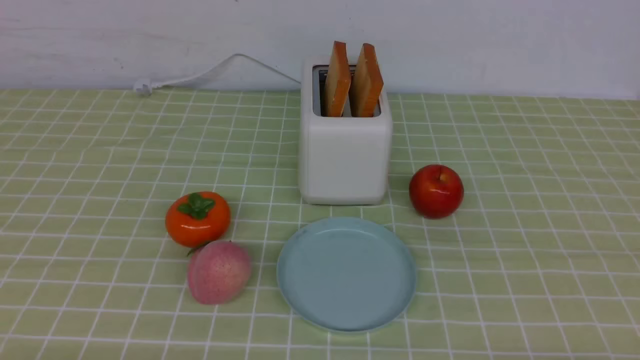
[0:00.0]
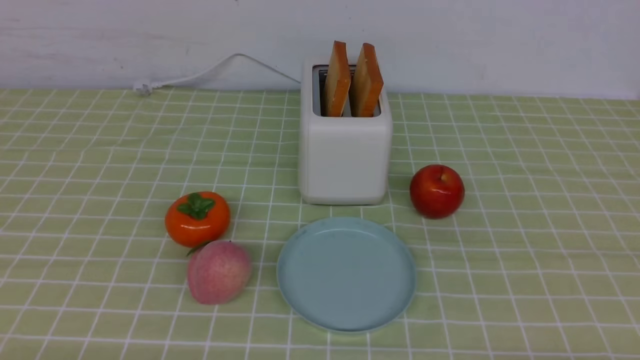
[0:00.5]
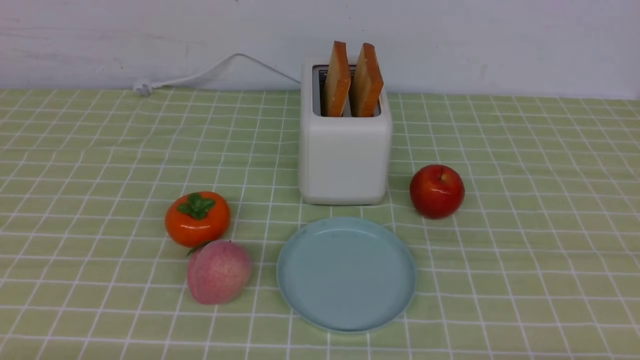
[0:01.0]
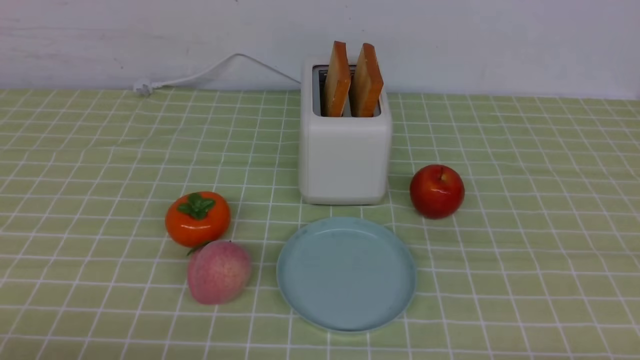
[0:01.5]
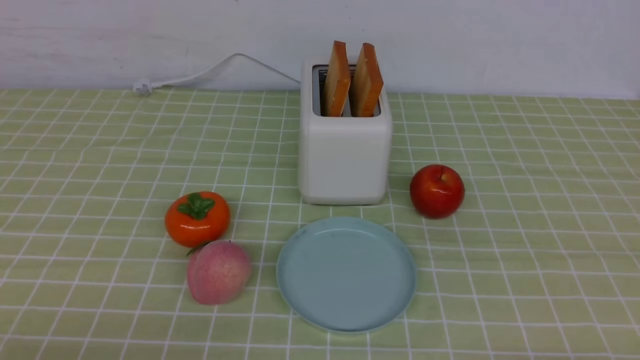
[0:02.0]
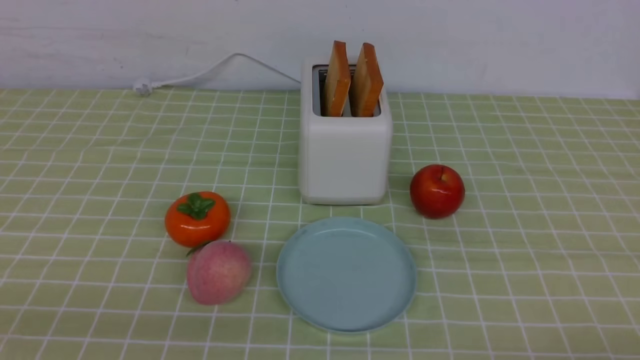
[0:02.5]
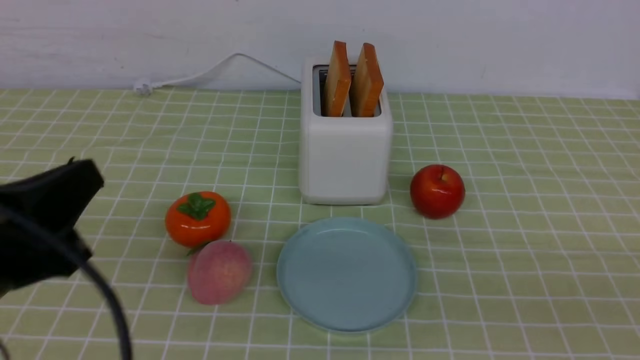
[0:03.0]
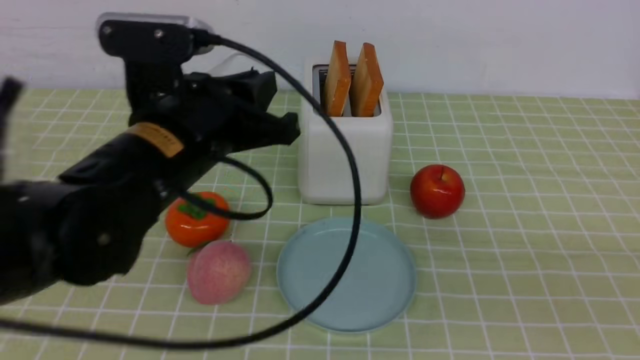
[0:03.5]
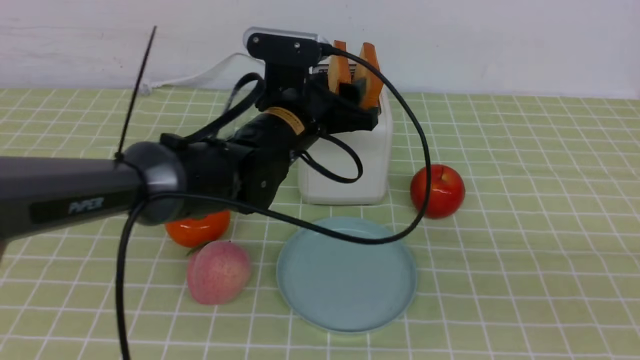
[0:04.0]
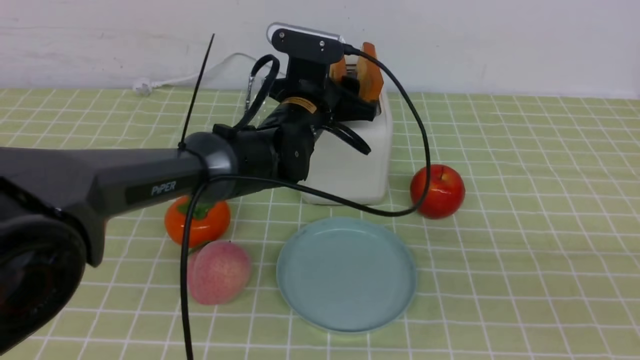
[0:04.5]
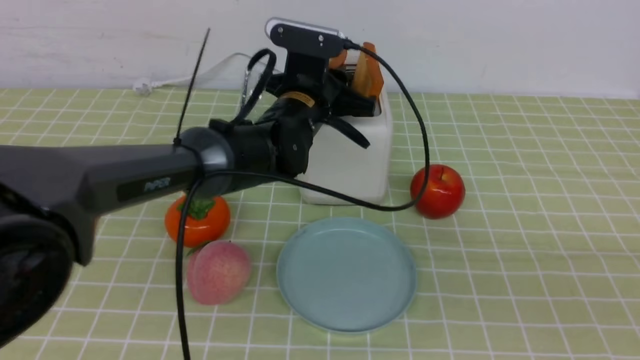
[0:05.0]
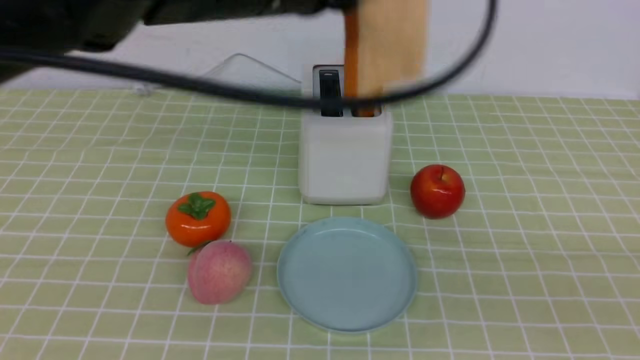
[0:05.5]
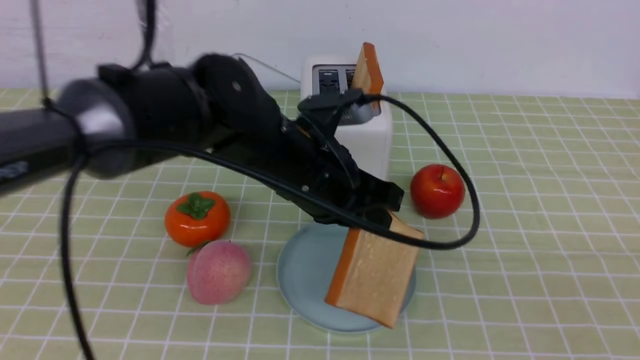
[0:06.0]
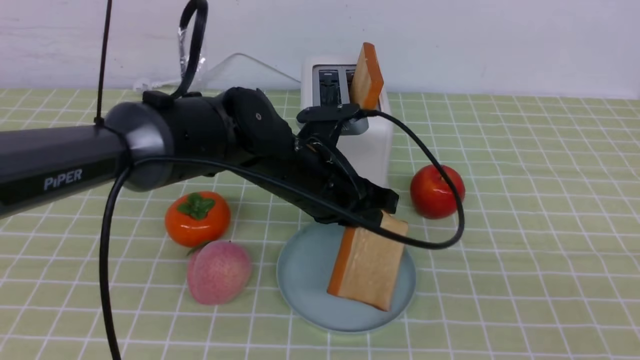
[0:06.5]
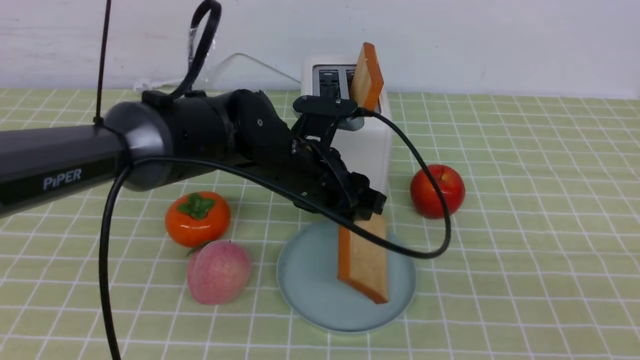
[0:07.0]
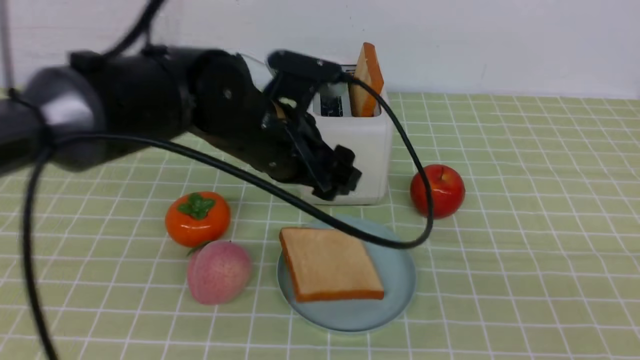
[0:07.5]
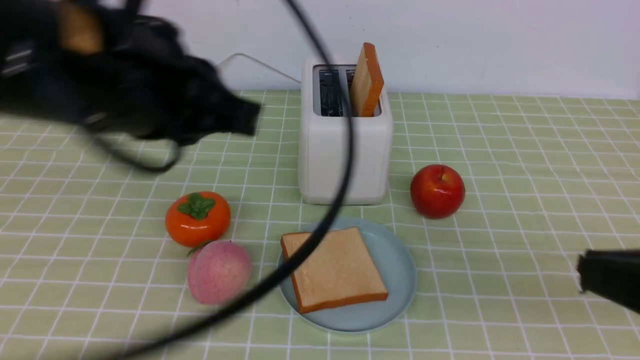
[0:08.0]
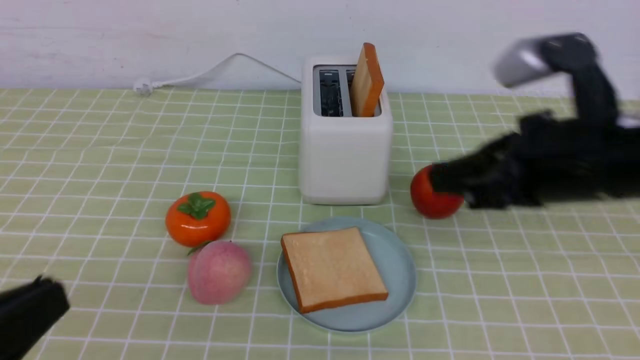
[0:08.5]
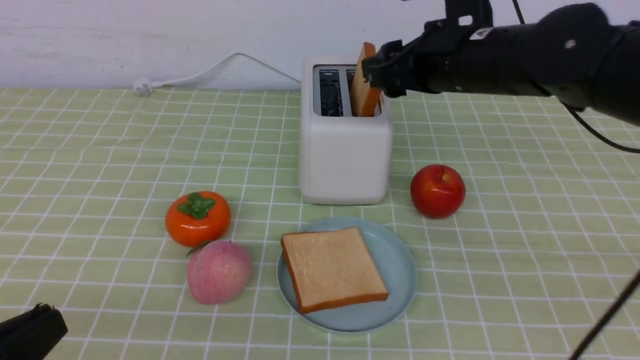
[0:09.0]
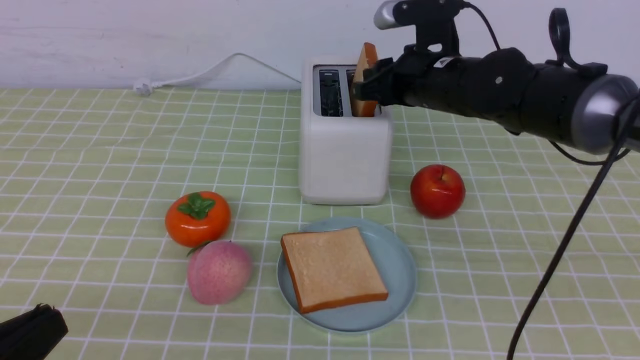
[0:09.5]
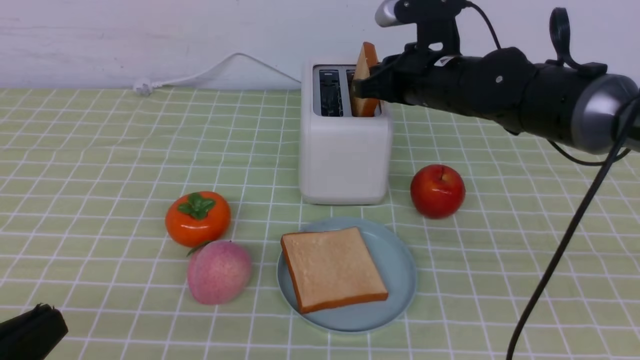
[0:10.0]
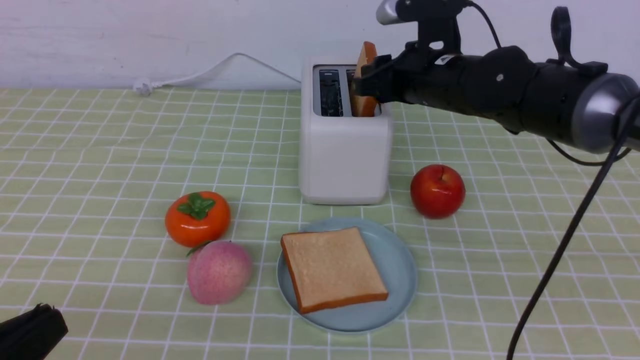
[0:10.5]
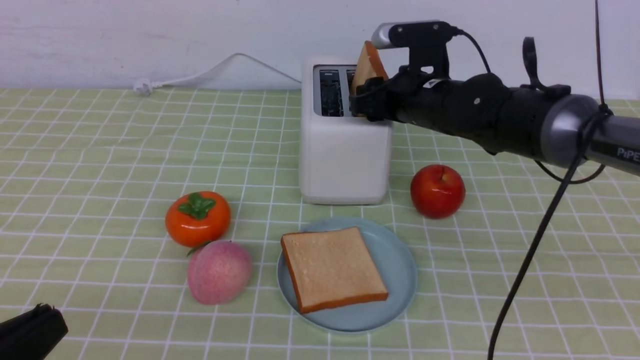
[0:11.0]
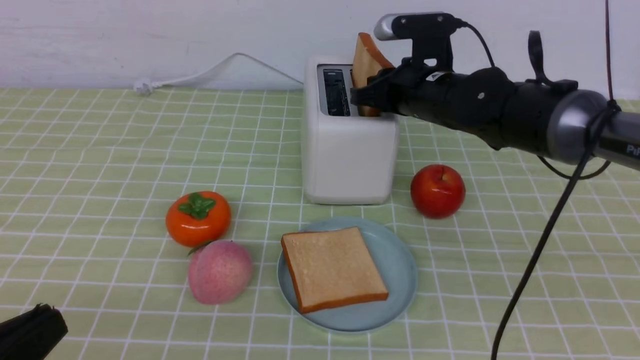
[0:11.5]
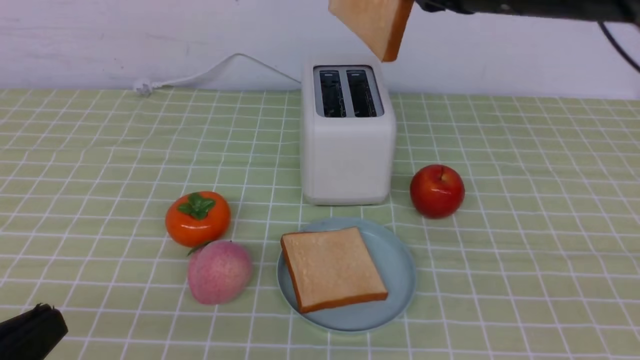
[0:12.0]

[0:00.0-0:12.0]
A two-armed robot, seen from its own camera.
Task of the whole recording: take toasted bread from bread machine on green coffee tablecloth place on plate.
Step, 0.0 to 5.0 s: use the left arm to take out a slice of bread.
Step, 5.5 to 7.5 s: use the left arm to put a slice of bread into the empty plate.
Step, 8.0 to 11.5 s: use the right arm to take out a slice of bread.
2.0 to 4.0 s: The right gripper is displaced upward by some 20 cm. The left gripper heads forward and to the right, covering about 40 cm, and opens its fingers.
4.0 to 6.0 s: The left gripper travels backward by about 5 cm, moves some 15 cm upward and comes back, and closes.
6.0 to 8.0 s: The left gripper goes approximately 20 cm backward, to the left and upward, and opens and closes again. Meanwhile the right gripper travels forward by about 5 cm.
8.0 to 10.0 s: The left gripper is displaced backward, downward and to the left by about 20 cm, while the right gripper is displaced forward by about 35 cm, and opens and closes again.
10.0 to 12.0 s: The right gripper shifts some 15 cm upward and backward, and opens and closes again.

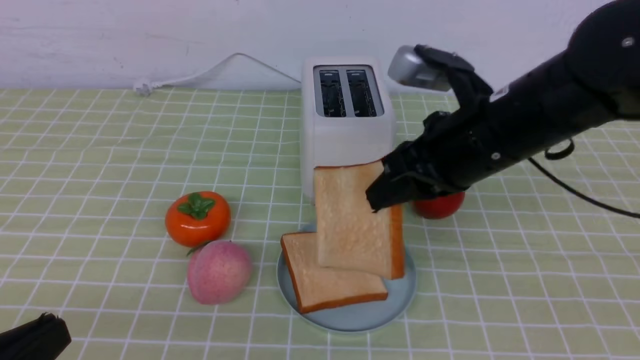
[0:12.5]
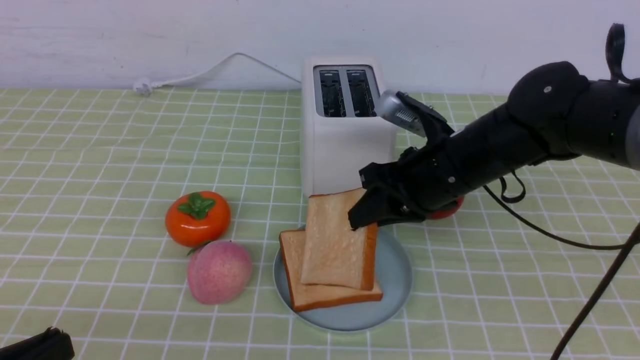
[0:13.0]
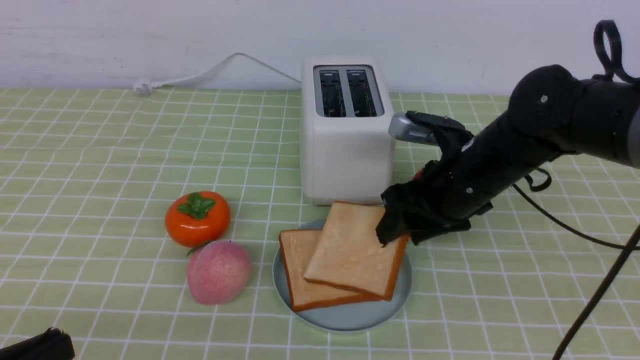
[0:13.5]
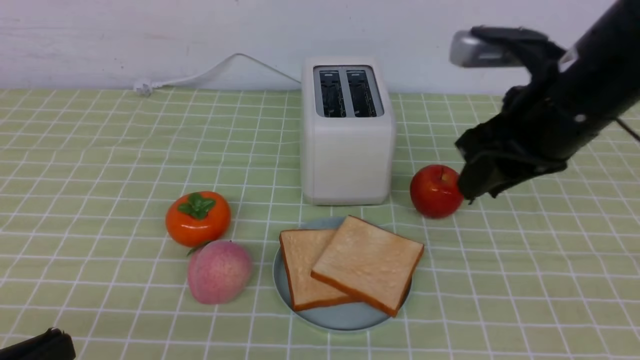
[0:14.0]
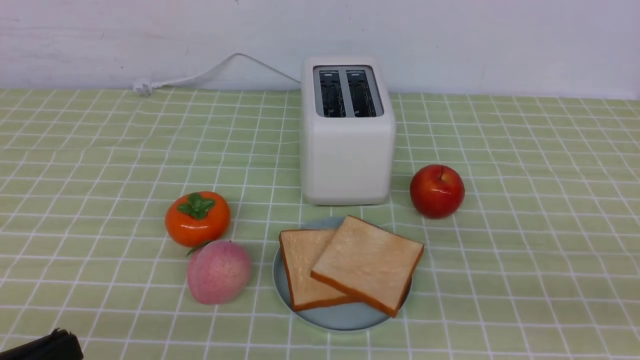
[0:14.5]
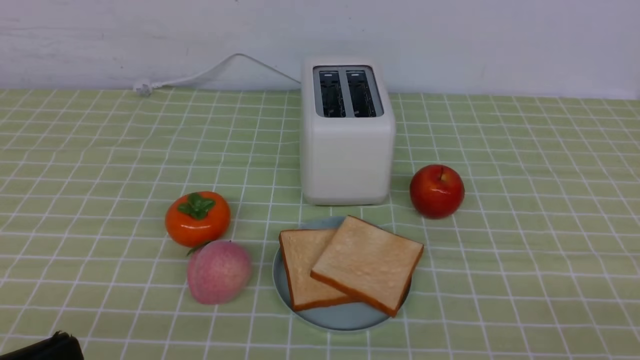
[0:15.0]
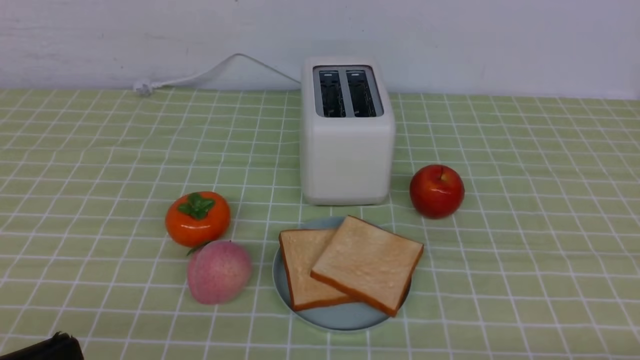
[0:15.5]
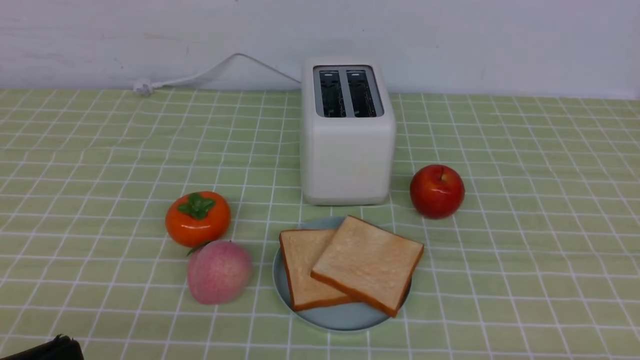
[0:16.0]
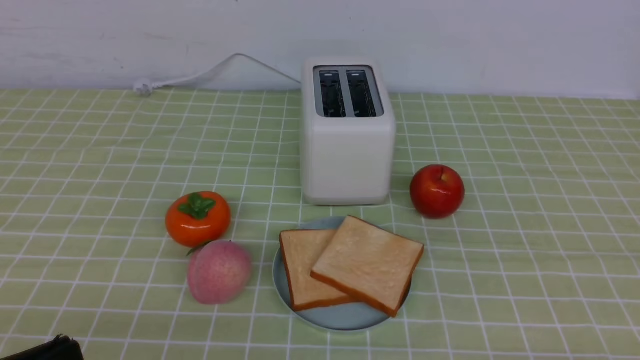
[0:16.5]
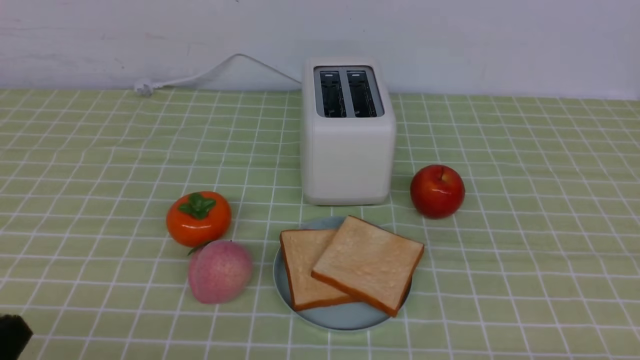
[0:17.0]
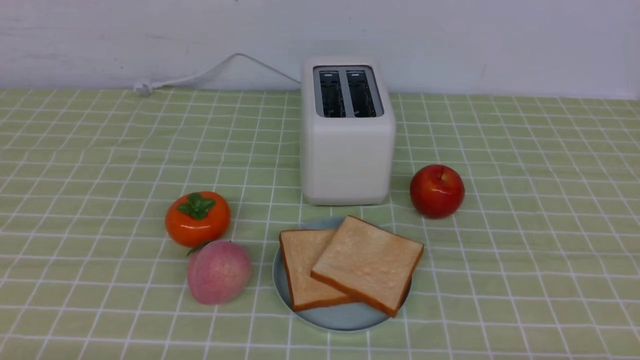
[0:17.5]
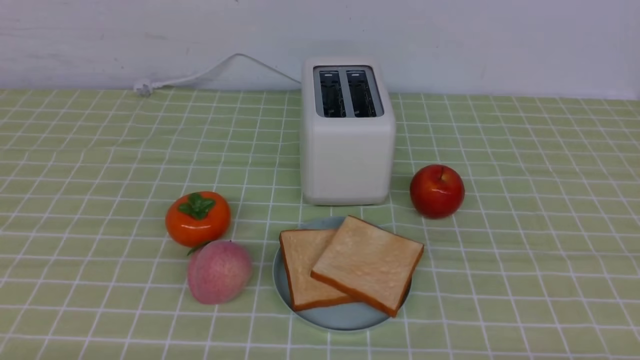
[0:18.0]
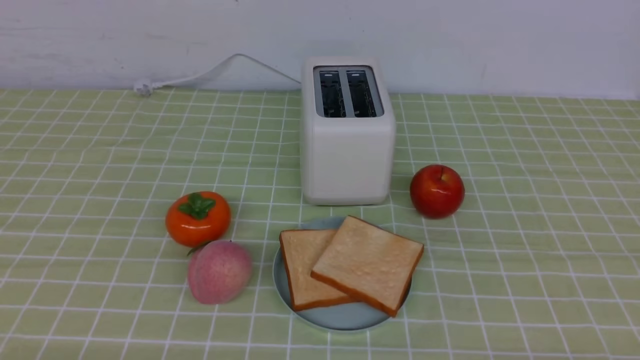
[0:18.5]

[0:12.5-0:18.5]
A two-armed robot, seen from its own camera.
Task of the whole recording: take toasted bread from bread machine on green coffee tablecloth place on plate.
Step, 12.5 to 13.5 s: use the right arm to put a slice of bread into the plate.
12.5 to 14.5 s: The right gripper goes approximately 25 cm backward and to the right, and opens, then closes once more.
16.5 to 18.5 s: The left gripper heads downward, covering some 10 cm.

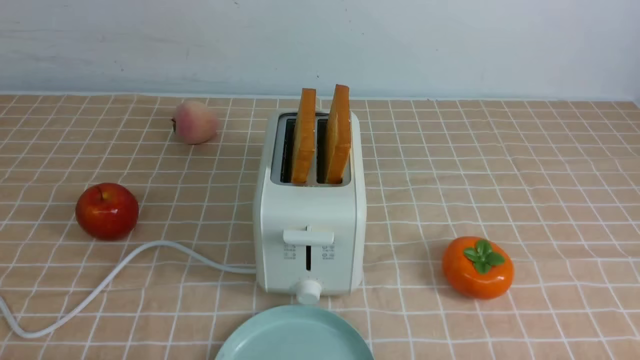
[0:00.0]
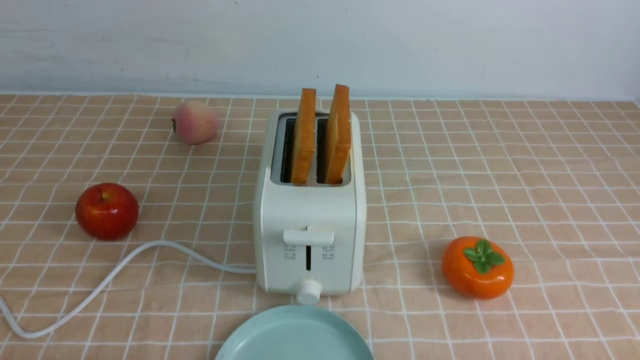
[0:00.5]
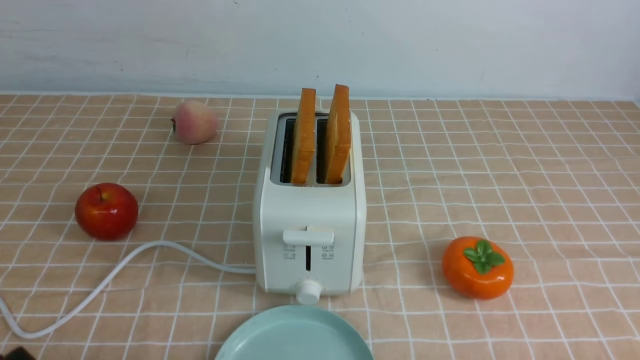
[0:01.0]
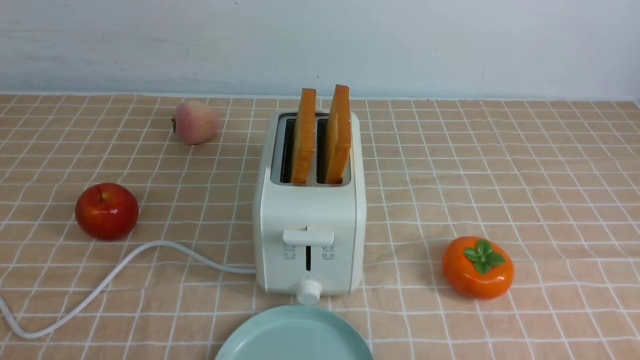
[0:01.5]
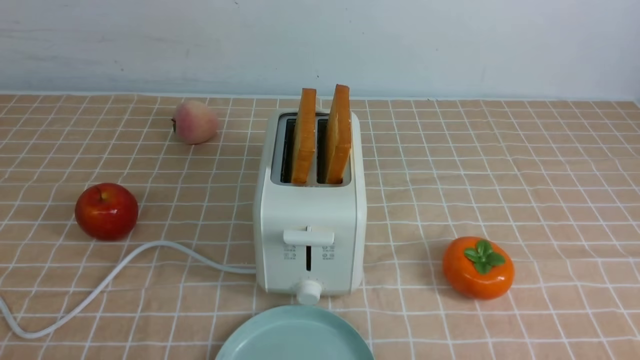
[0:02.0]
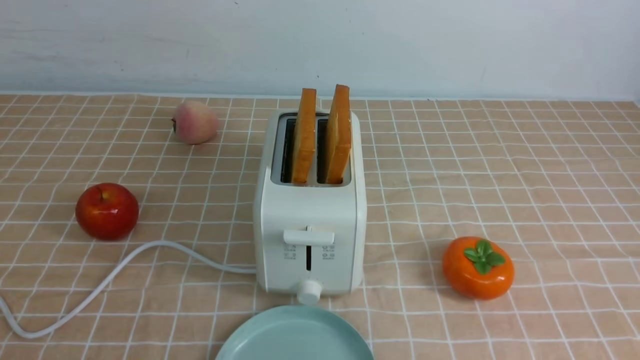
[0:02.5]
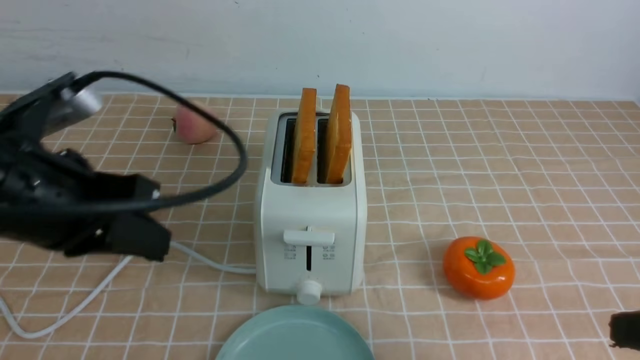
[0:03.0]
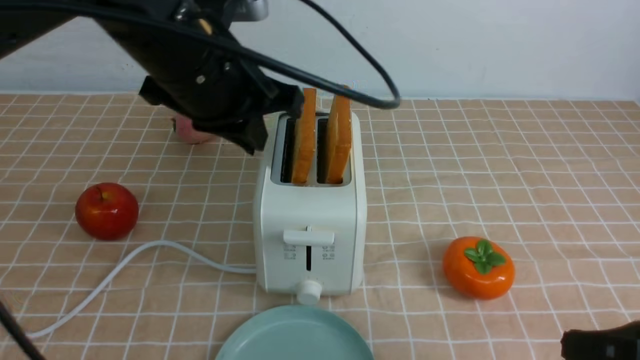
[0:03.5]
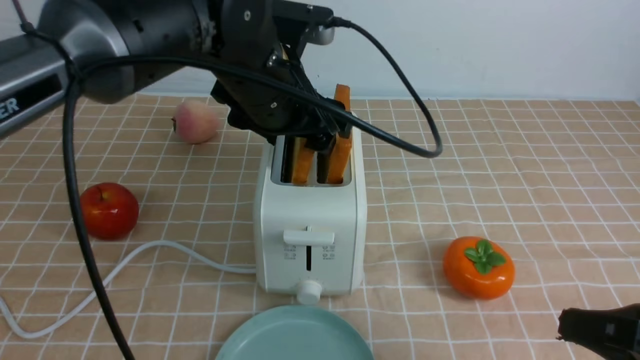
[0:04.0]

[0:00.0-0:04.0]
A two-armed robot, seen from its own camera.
Task of the whole recording: take toasted bread from bread machine on light coffee tablecloth place on plate.
2.0 to 4.0 s: The left gripper heads forward and to the right, covering about 35 cm, and opens. The right gripper travels forward and upward by about 10 cm, and closes.
